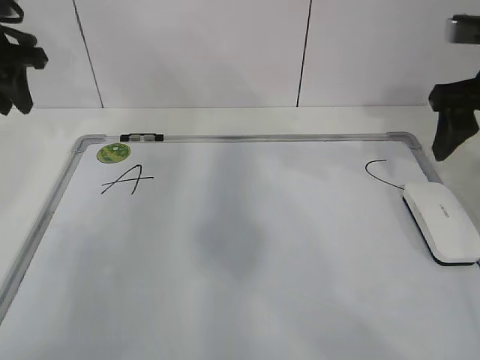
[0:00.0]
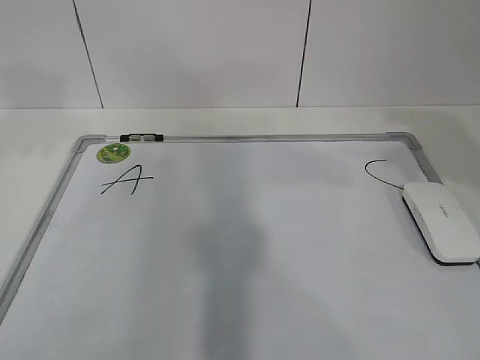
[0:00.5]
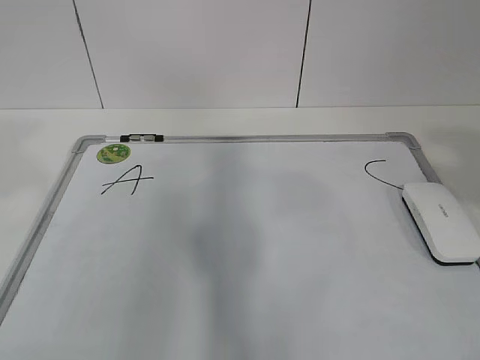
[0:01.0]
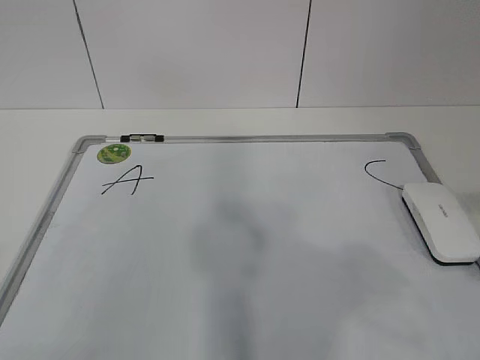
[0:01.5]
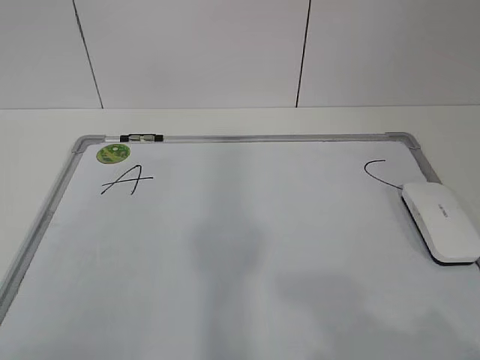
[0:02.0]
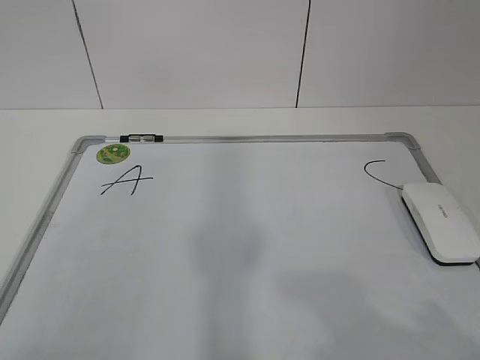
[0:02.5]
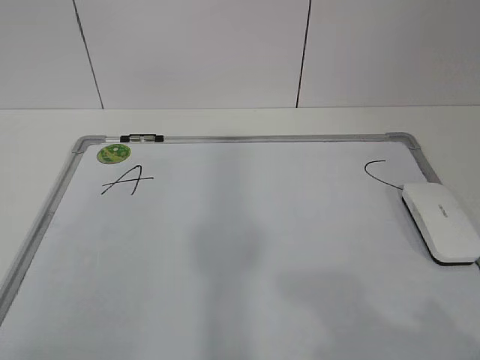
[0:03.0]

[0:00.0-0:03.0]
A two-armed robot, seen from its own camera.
Task of the whole recording: pick up the eraser on the blackboard and erase the letter "B".
0:00.0 to 0:01.5: The grippers both shift backward by approximately 35 cm.
0:01.5 to 0:03.0: Both grippers travel together downward, some 10 cm.
